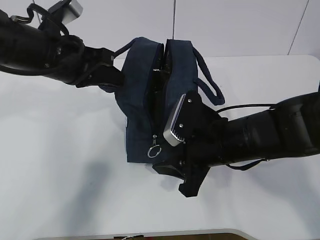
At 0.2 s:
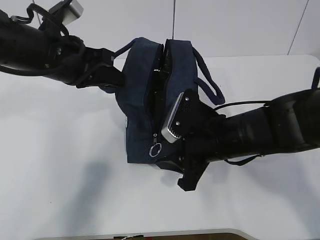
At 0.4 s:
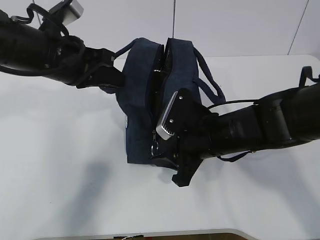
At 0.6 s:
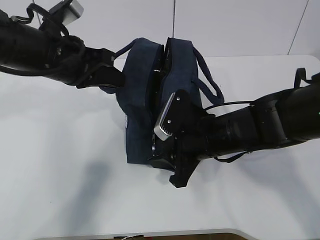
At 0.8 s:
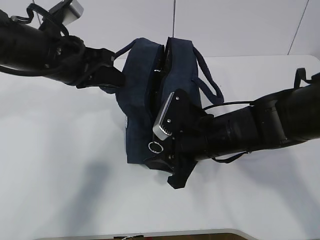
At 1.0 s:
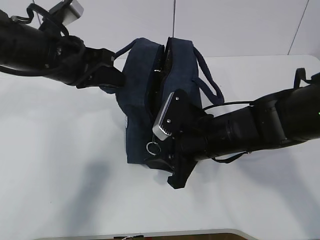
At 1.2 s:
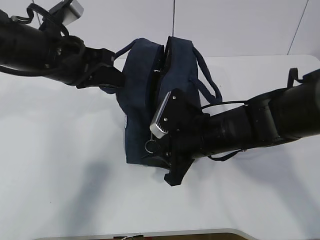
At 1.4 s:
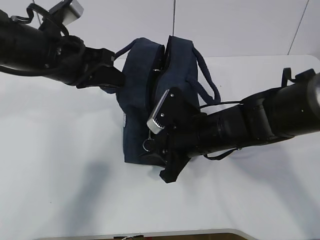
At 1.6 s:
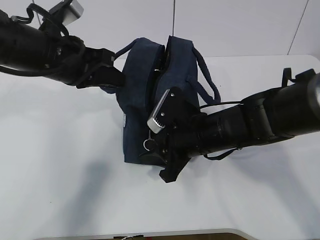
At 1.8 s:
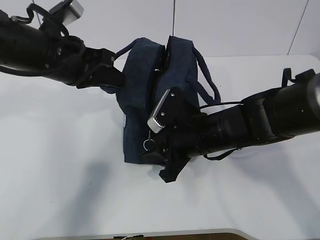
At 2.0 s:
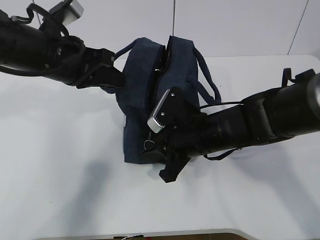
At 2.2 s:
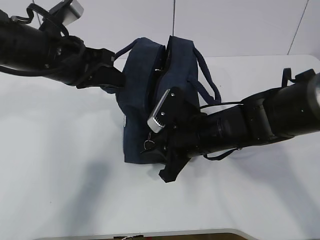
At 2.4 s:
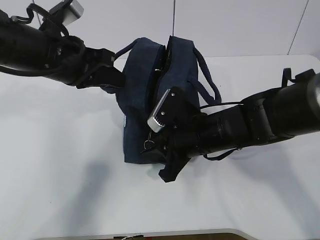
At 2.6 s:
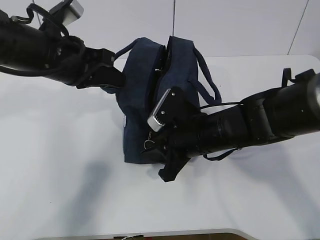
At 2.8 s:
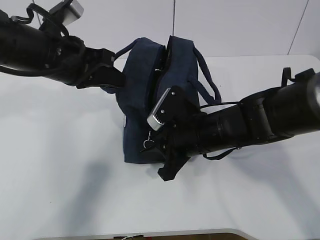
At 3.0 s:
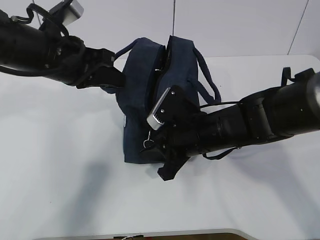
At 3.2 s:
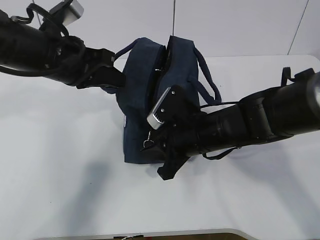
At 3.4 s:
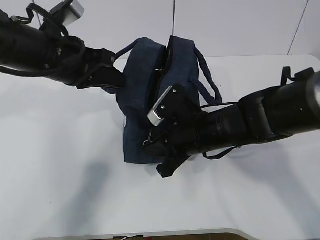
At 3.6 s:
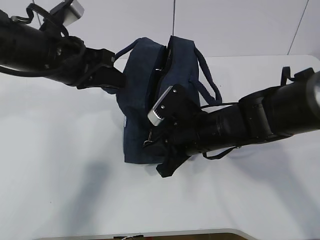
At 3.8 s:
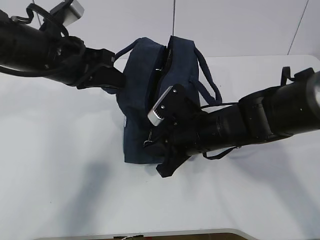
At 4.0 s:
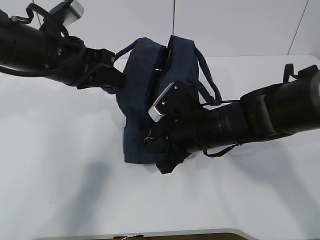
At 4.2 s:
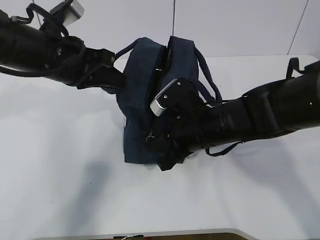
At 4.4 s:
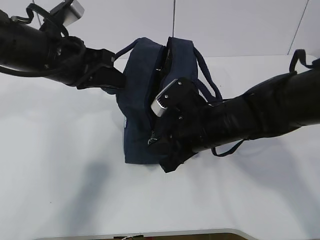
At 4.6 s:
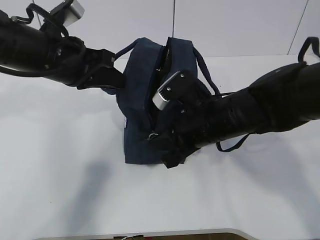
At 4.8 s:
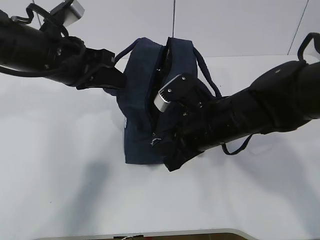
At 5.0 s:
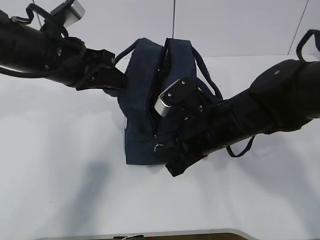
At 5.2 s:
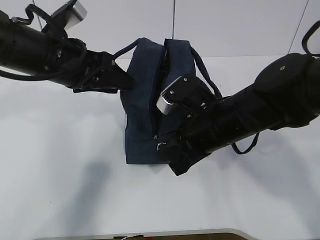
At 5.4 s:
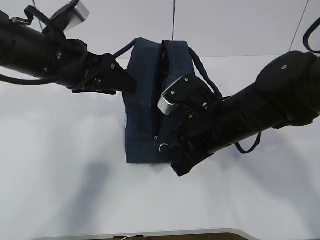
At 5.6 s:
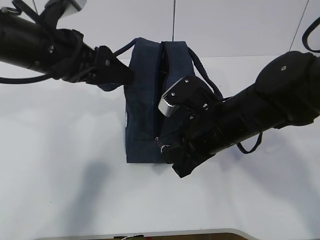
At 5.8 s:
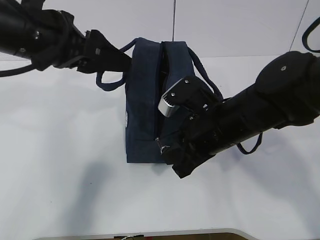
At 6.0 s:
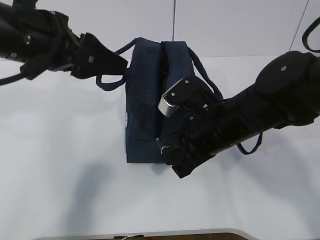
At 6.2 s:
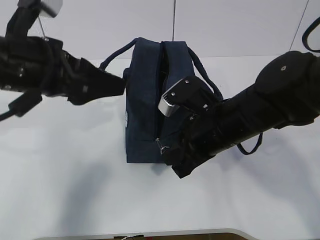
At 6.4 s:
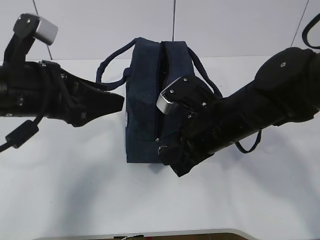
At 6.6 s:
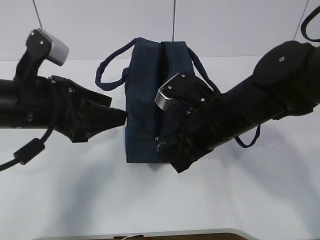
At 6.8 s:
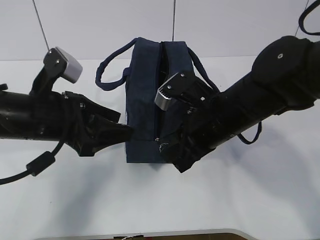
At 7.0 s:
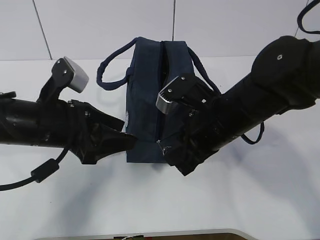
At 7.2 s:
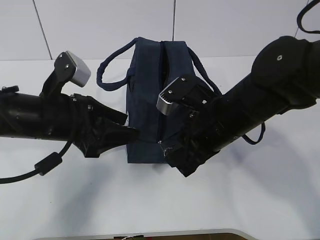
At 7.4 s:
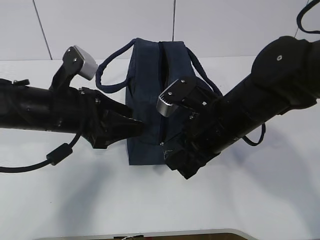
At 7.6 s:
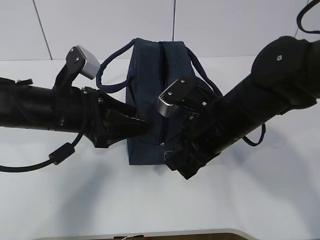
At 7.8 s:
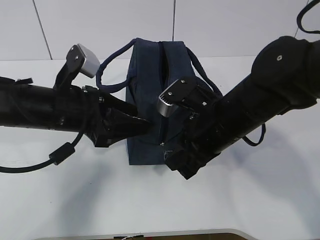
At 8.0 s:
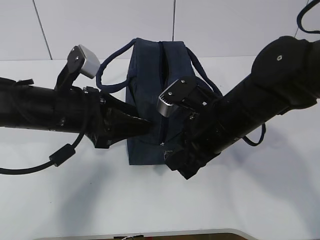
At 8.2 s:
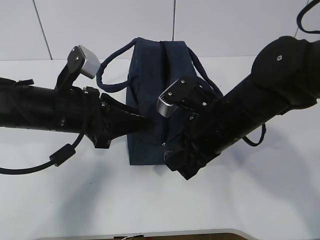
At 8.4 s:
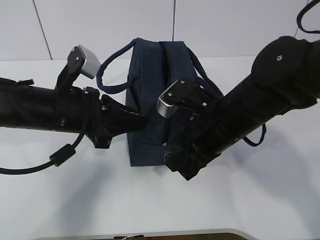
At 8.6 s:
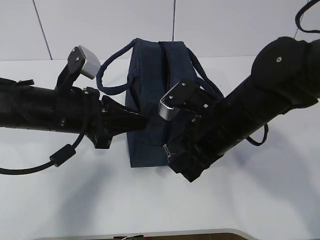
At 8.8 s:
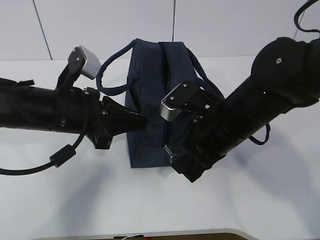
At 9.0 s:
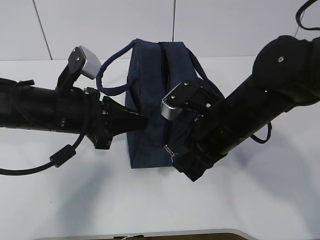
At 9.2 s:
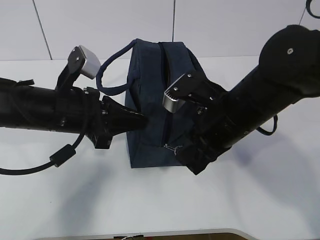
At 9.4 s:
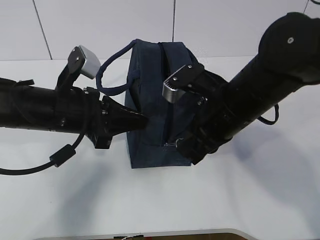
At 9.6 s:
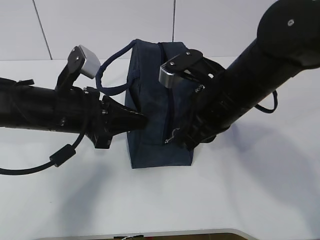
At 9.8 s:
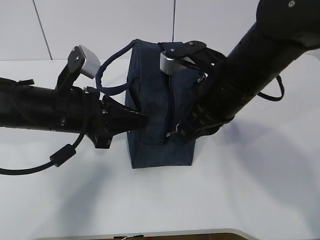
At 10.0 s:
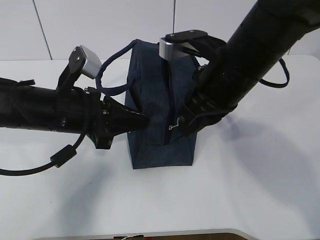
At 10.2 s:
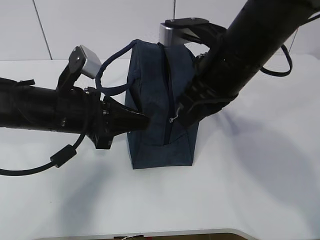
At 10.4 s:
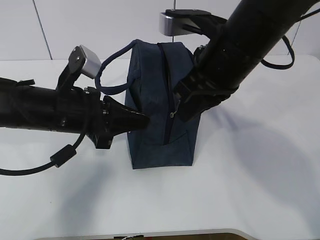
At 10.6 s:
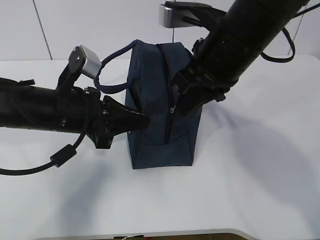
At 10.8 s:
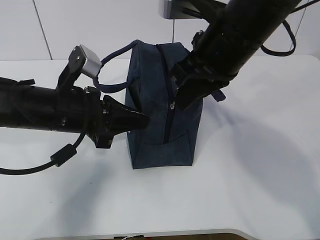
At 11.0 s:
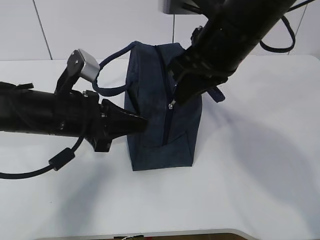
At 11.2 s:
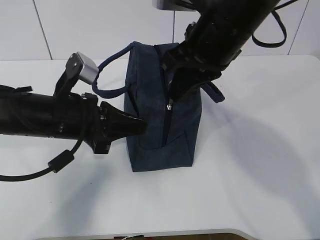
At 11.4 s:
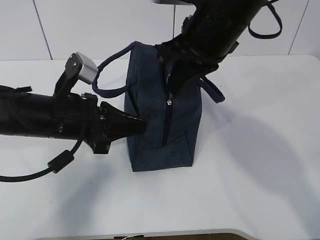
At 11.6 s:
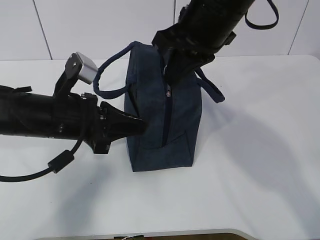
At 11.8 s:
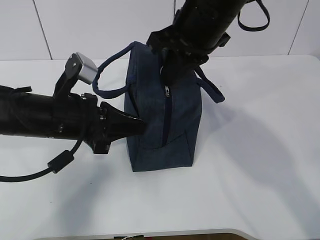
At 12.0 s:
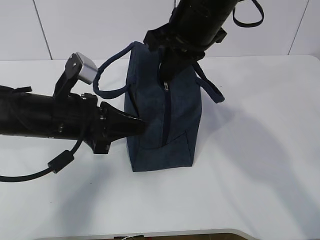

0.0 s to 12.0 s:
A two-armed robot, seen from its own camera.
Step, 0.0 to 7.2 s: Grab the lunch bag with your left hand.
0.0 to 1.6 s: The grippers move only a little.
1.6 to 3.0 s: Both grippers stay about where they are.
3.0 to 4.4 s: The grippers stay close to where they were, moving slightly.
4.4 to 6.0 s: The left gripper changes place by approximately 5 cm, and opens its fingers.
6.0 to 7.6 s: The left gripper shifts roughly 10 cm downward.
7.6 to 9.0 s: The left gripper closes its fingers.
9.0 to 10.4 s: The right gripper travels upward by approximately 10 cm.
10.4 to 12.0 s: The right gripper moves forward, approximately 5 cm.

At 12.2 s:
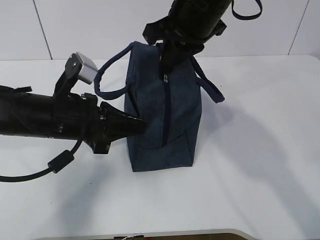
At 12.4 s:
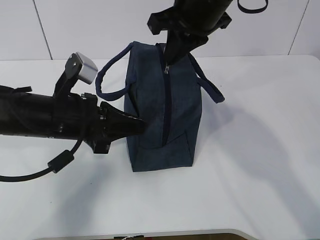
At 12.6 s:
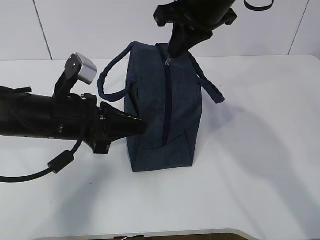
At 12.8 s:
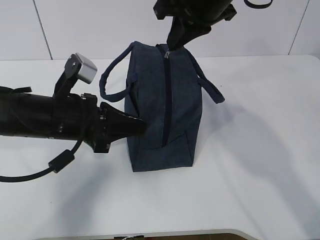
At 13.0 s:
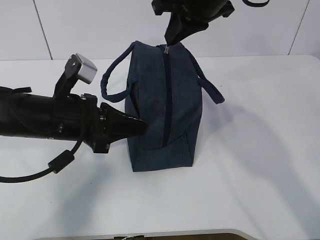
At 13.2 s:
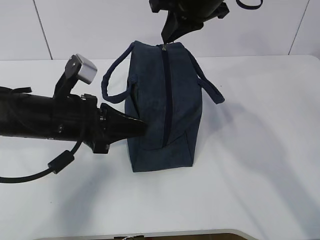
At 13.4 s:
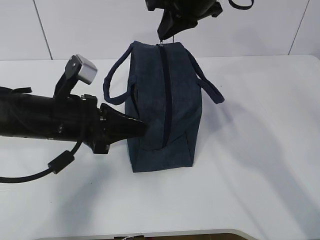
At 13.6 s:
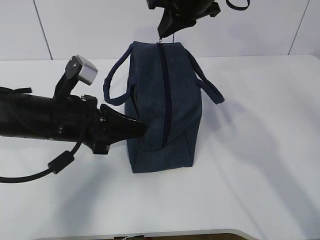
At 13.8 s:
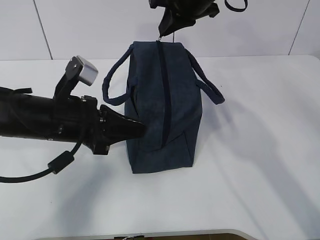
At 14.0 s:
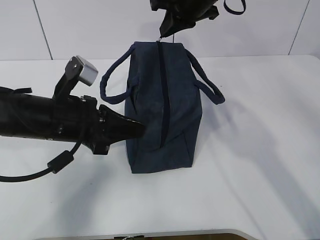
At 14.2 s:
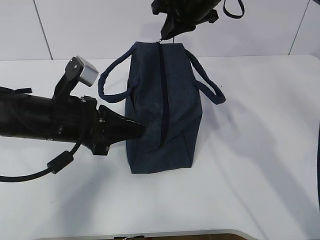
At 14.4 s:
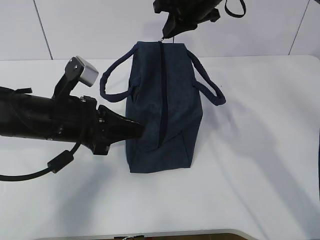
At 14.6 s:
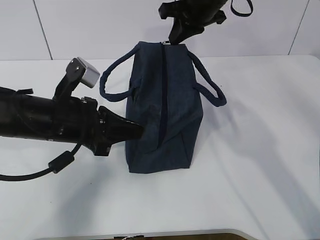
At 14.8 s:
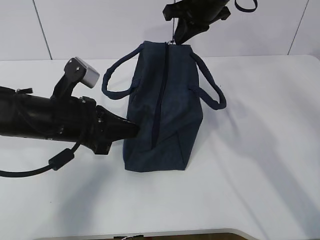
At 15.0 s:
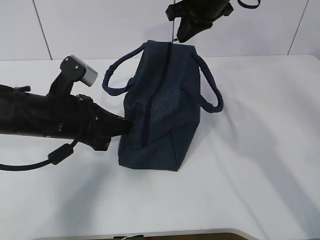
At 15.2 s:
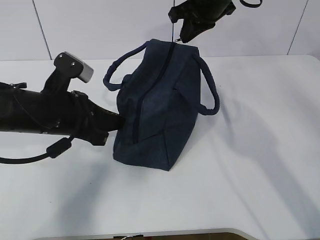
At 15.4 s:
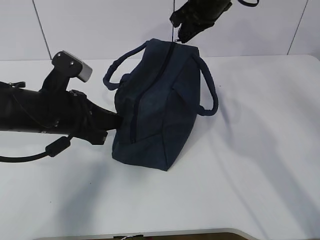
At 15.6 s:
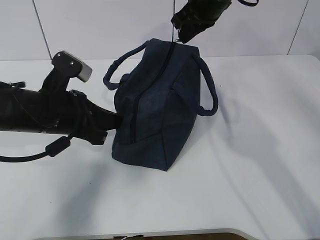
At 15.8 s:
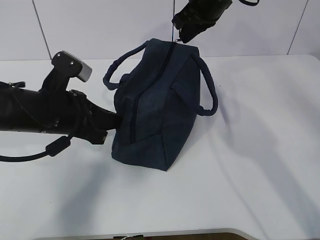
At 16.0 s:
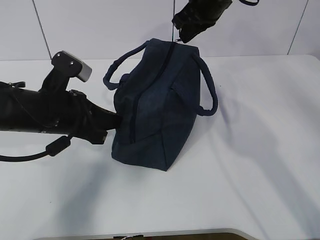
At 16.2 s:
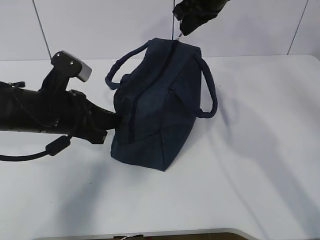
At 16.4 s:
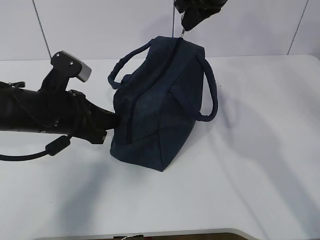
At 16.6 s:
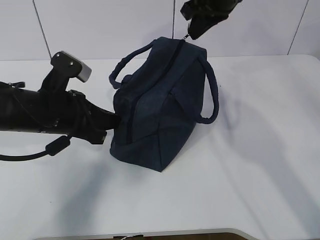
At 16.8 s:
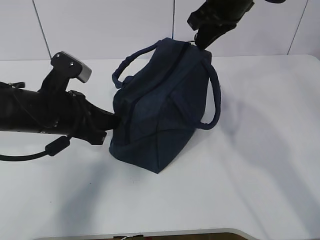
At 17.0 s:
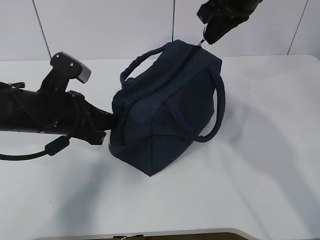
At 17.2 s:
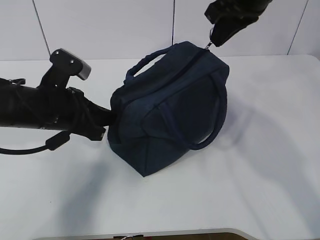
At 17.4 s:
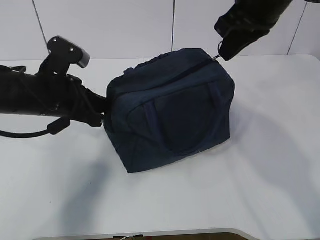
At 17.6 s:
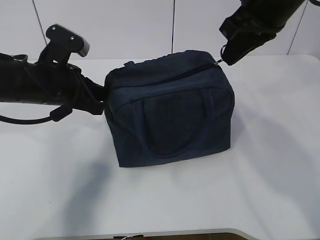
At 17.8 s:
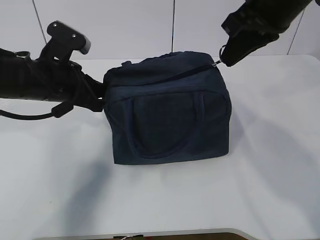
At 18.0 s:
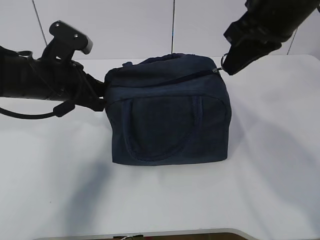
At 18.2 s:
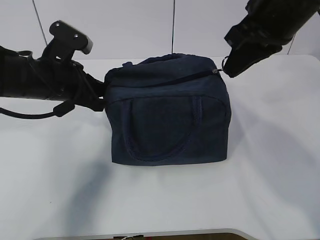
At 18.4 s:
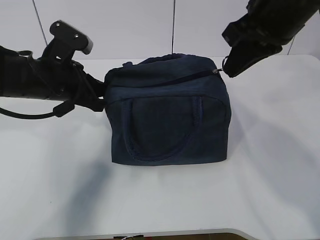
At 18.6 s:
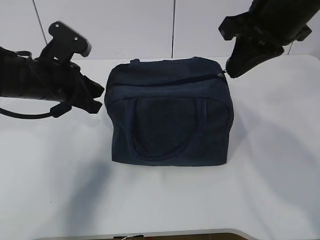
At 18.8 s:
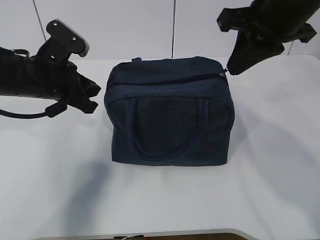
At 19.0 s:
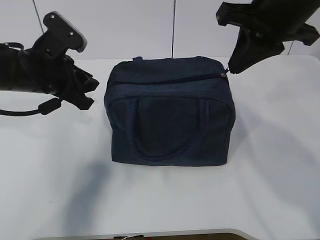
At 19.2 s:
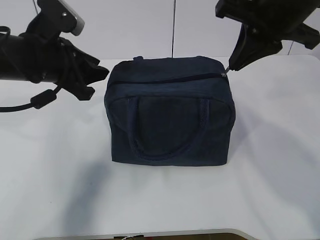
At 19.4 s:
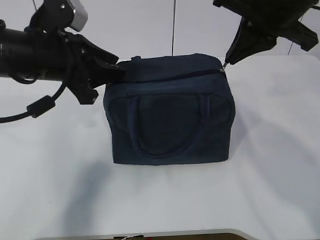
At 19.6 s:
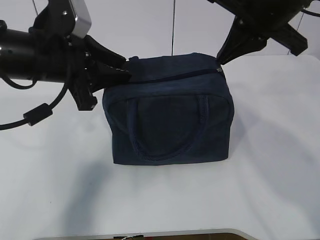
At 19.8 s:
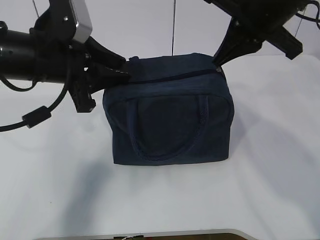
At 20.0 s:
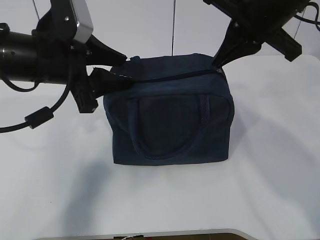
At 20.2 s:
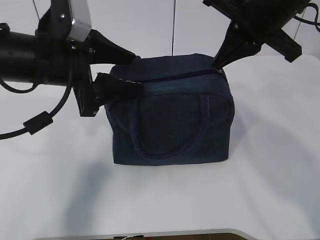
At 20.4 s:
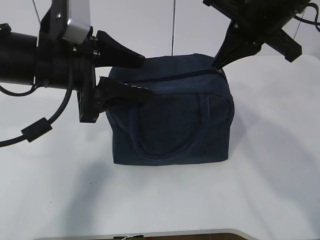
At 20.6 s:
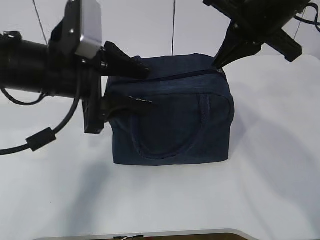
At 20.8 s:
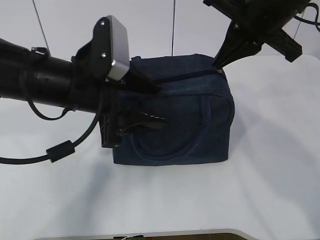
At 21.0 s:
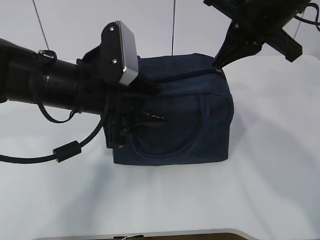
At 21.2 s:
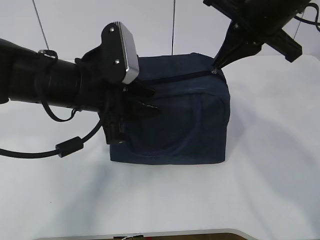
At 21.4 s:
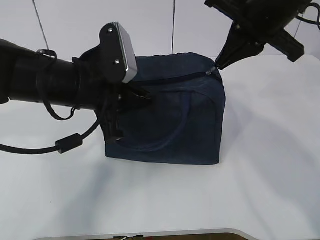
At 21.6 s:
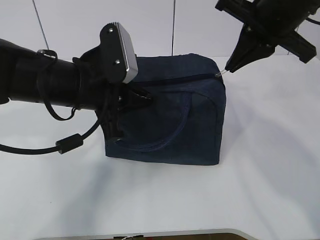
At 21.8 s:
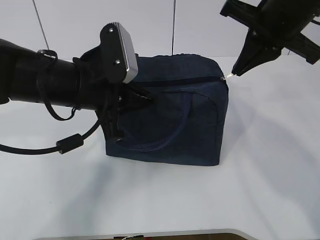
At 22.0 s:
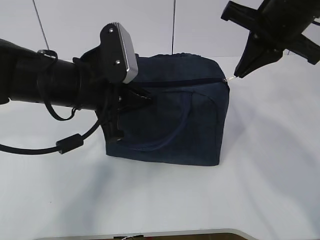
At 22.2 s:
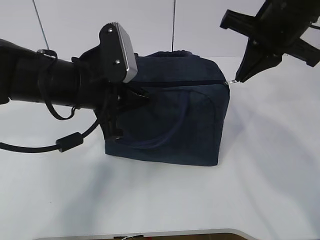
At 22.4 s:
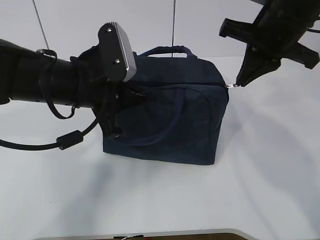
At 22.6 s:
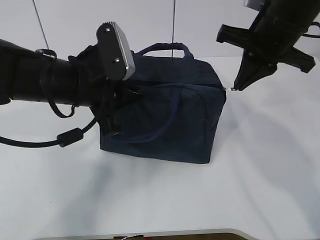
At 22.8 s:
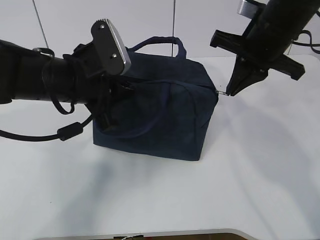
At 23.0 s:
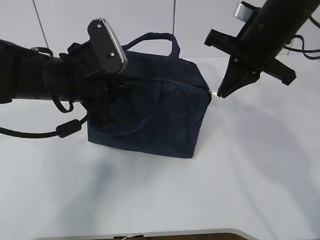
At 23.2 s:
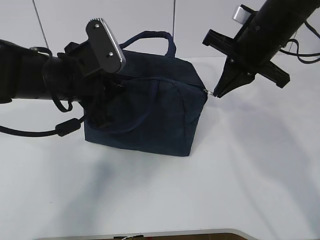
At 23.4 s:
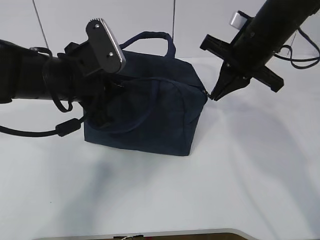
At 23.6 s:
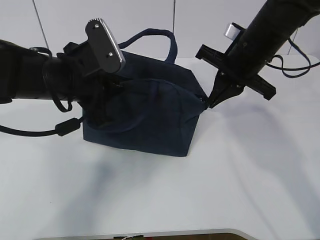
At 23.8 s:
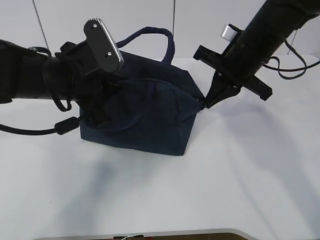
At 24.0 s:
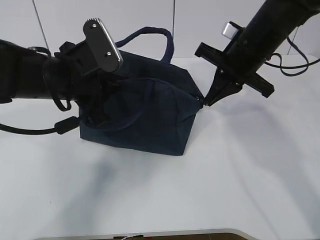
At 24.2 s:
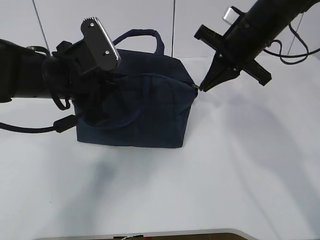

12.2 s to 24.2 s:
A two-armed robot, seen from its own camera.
Step, 12.2 to 14.4 s: Pull the zipper with your right hand.
Step, 14.8 to 15.6 s: Grab the lunch bag with your left hand.
12.2 to 13.8 s: The right gripper is displaced forward by approximately 10 cm.
13.8 to 15.2 s: The grippers stay close to where they were, moving slightly.
15.2 to 16.6 s: The grippers move only a little.
16.6 to 18.2 s: The left gripper changes place by roughly 5 cm; the right gripper travels backward by approximately 10 cm.
18.2 to 19.8 s: The left gripper heads upward, covering some 5 cm, and opens up.
19.8 to 21.2 s: The left gripper moves some 5 cm, and opens, then closes again.
21.2 to 22.6 s: The left gripper closes. Meanwhile the right gripper shifts by some 5 cm.
22.6 to 24.2 s: The right gripper changes place by about 5 cm.
